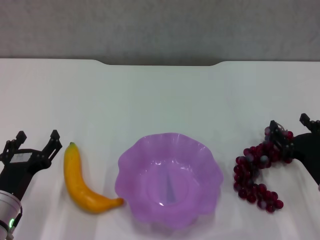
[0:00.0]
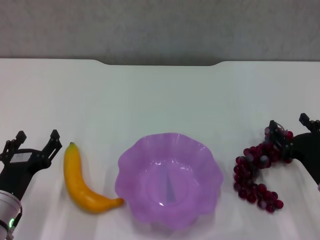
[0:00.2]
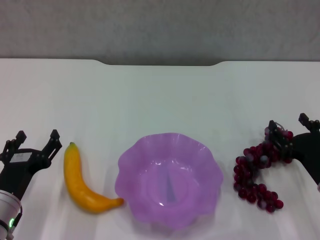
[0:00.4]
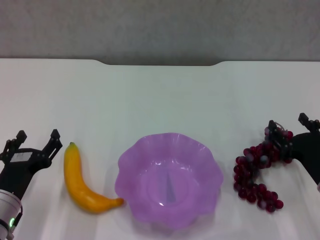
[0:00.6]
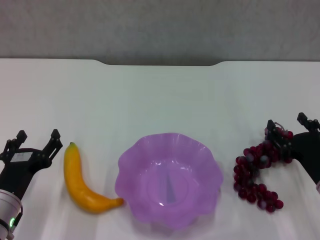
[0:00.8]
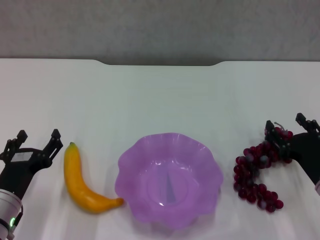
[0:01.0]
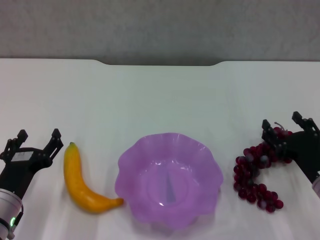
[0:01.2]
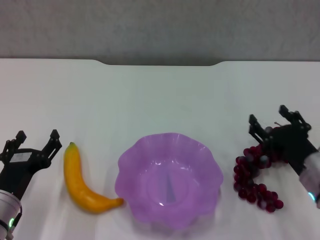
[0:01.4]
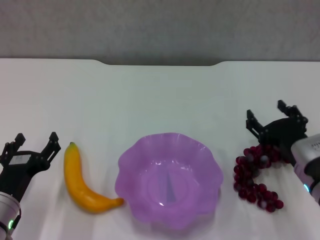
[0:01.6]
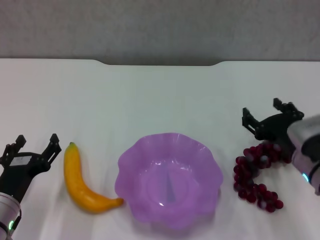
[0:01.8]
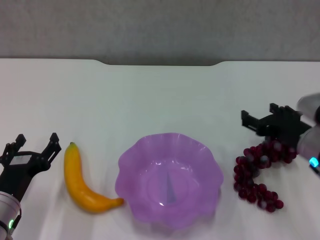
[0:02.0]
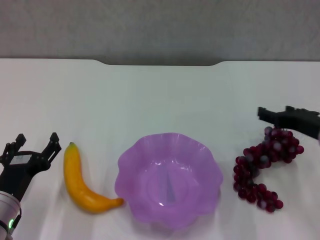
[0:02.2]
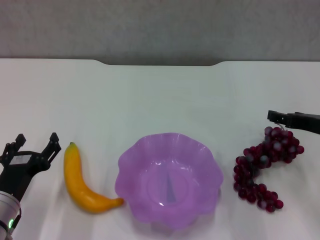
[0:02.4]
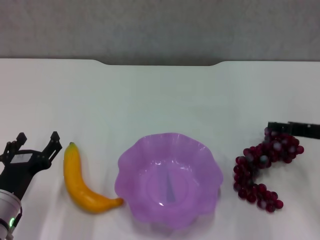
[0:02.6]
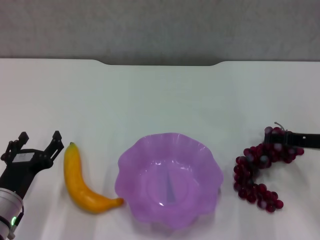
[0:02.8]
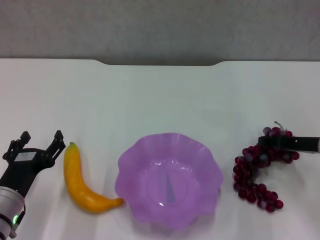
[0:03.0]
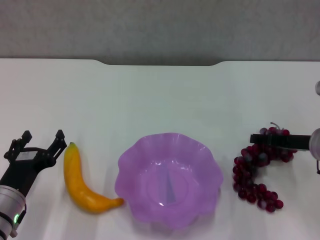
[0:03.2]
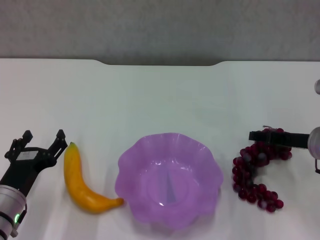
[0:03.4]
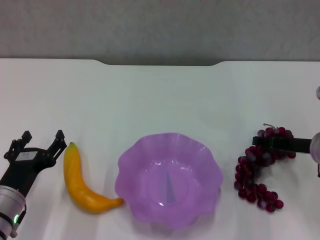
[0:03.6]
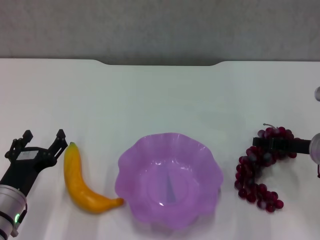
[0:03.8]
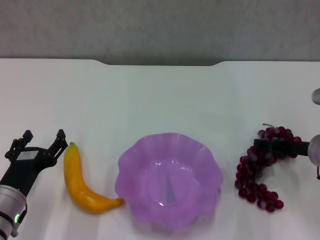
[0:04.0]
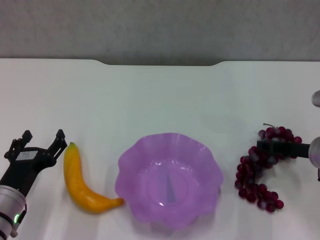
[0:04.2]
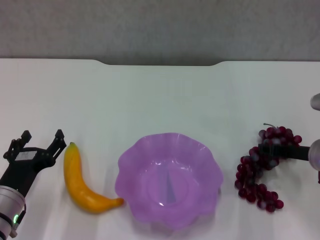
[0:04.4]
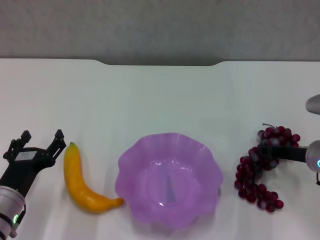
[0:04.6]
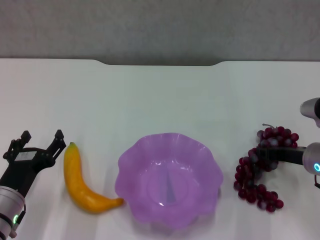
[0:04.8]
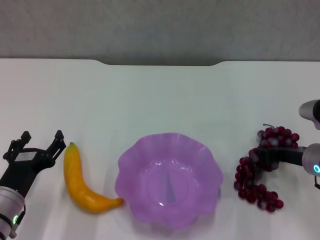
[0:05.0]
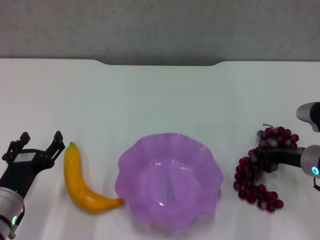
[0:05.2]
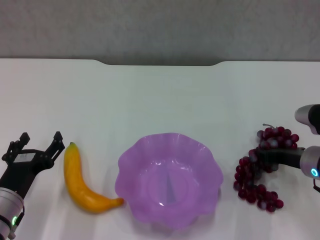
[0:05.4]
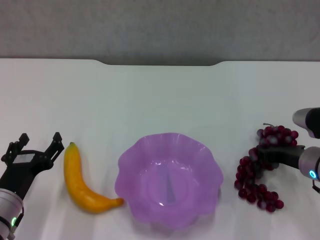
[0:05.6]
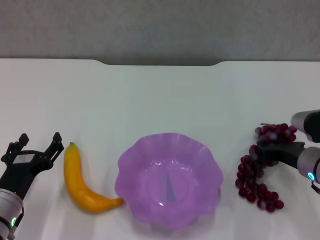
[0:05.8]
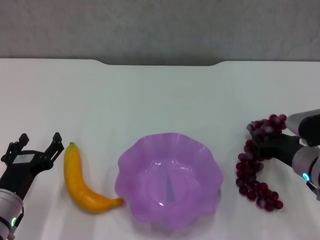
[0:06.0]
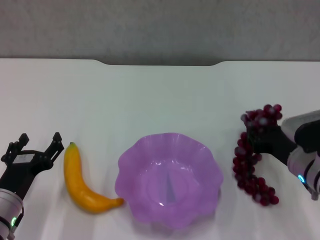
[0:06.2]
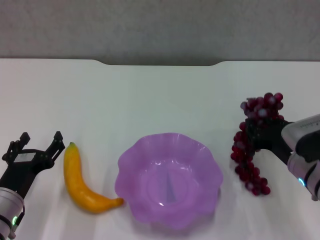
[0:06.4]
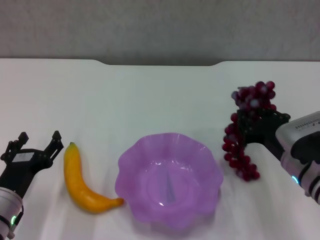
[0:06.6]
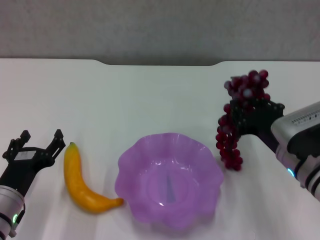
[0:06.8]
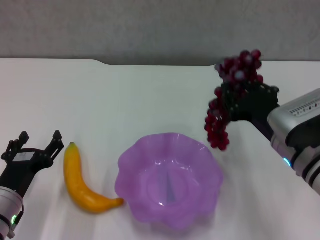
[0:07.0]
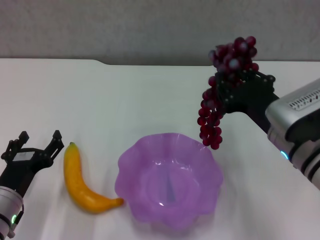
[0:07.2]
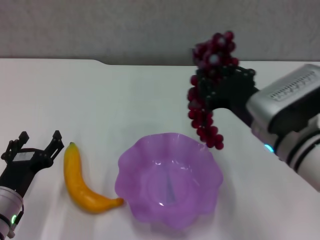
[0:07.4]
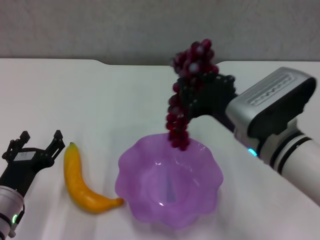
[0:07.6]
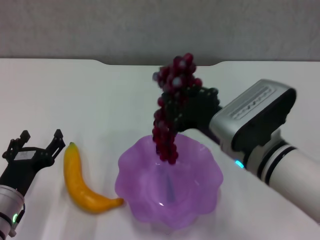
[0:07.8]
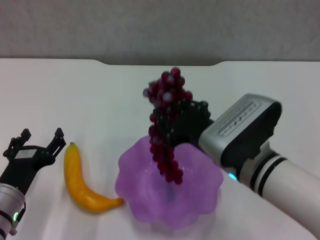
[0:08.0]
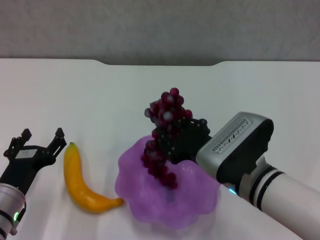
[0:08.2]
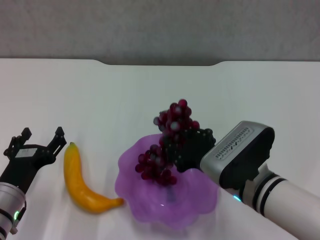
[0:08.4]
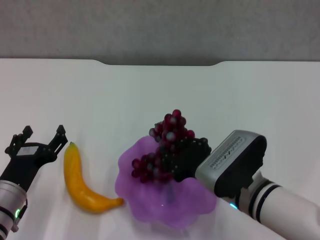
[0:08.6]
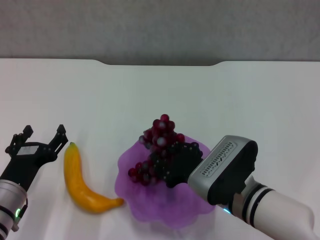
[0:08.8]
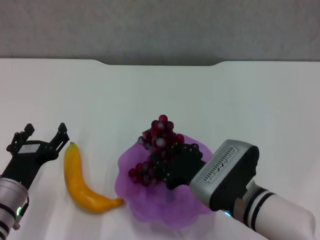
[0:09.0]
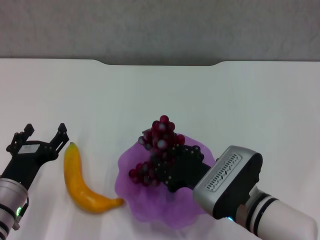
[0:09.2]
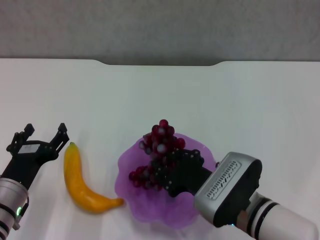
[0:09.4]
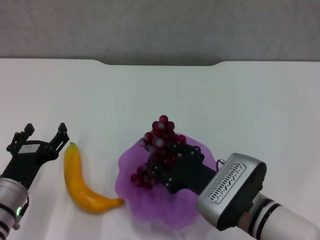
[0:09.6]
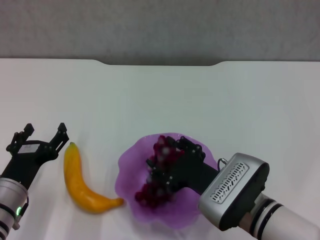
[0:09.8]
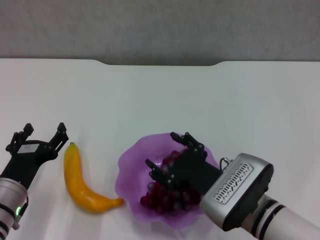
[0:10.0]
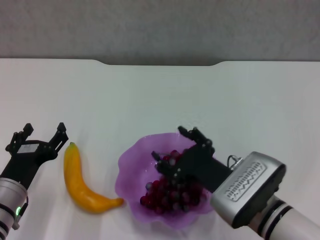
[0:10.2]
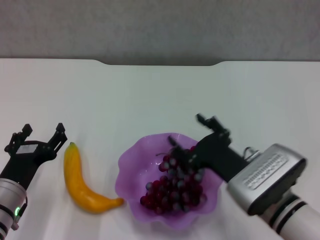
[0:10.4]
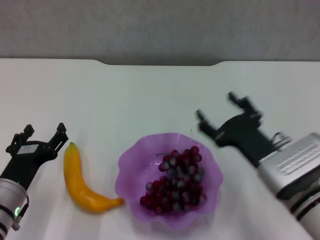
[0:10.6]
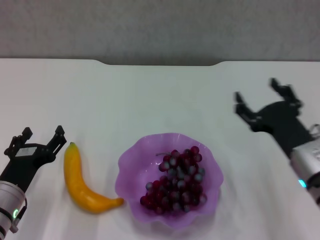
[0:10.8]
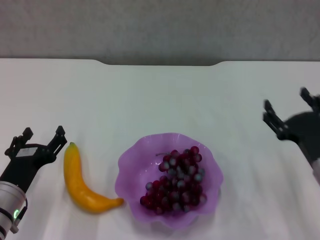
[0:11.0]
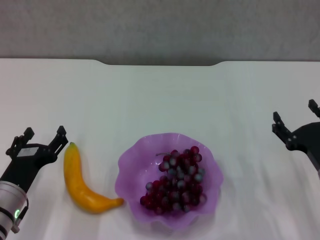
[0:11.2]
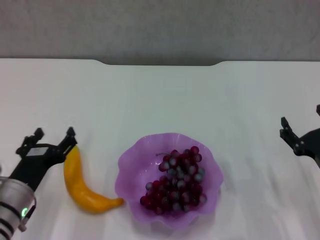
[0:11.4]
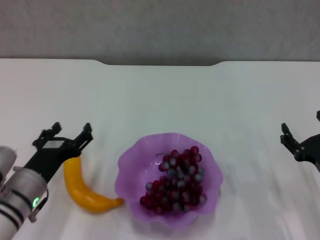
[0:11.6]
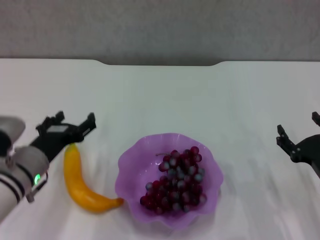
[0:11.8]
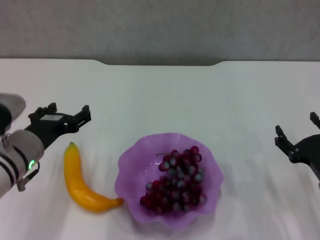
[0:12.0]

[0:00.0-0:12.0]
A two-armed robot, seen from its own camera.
Step, 0:00.0 to 0:05.0: Grasp the grape with right gripper.
Step, 0:05.2 to 0:10.0: Place the grape in the purple plate with right gripper.
0:00.0 to 0:01.6: The right gripper ends up approximately 5 cm from where it was.
0:01.6 to 0:03.0: The right gripper travels forward and to the right by roughly 10 cm.
0:03.0 to 0:04.4: The right gripper closes.
0:04.4 to 0:06.0: The right gripper closes.
0:06.0 to 0:07.6: The right gripper shifts some 15 cm to the left and upward.
0:07.6 to 0:09.0: The right gripper goes some 10 cm downward.
0:09.0 to 0:10.4: The right gripper opens up.
0:10.4 to 0:12.0: The left gripper moves upward, approximately 10 cm. The right gripper shifts about 15 cm to the right.

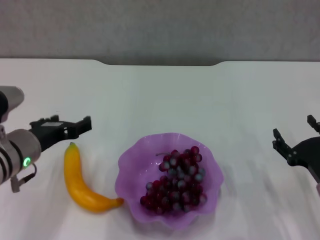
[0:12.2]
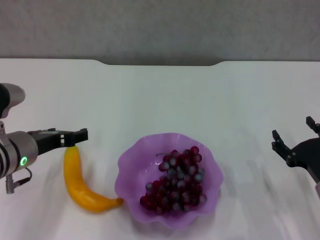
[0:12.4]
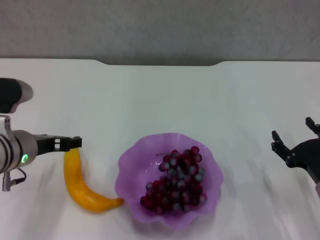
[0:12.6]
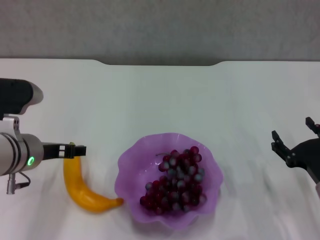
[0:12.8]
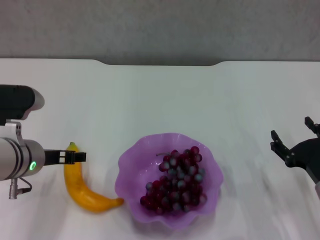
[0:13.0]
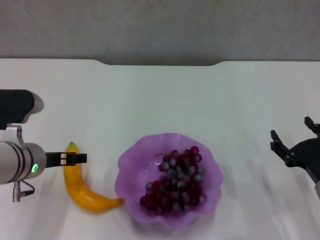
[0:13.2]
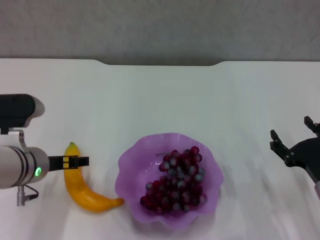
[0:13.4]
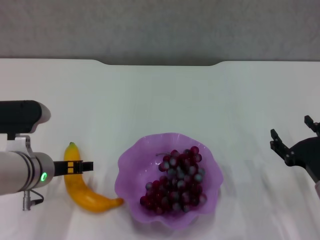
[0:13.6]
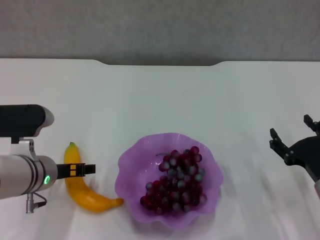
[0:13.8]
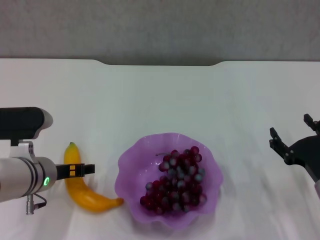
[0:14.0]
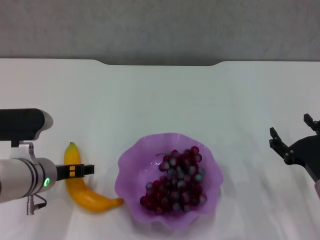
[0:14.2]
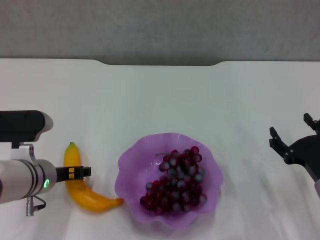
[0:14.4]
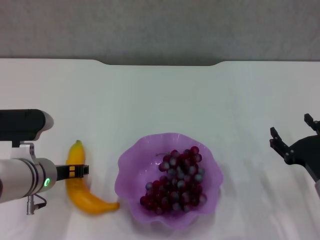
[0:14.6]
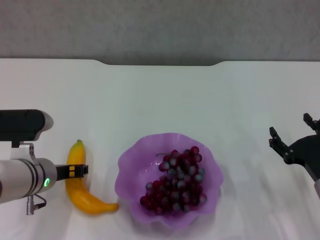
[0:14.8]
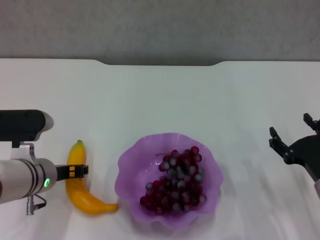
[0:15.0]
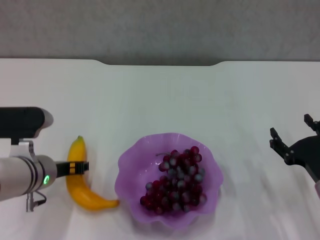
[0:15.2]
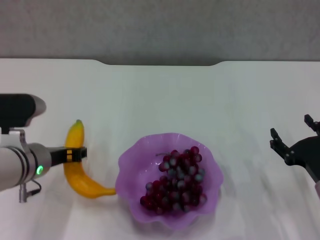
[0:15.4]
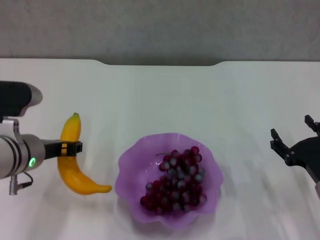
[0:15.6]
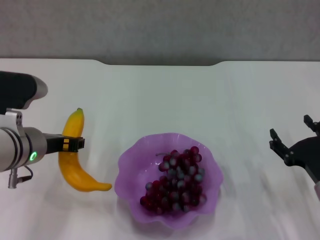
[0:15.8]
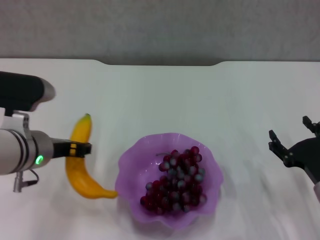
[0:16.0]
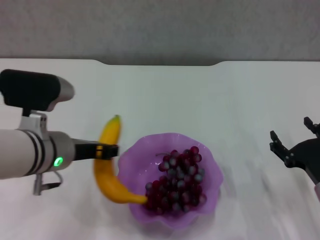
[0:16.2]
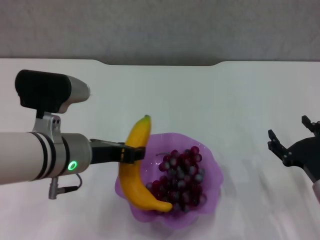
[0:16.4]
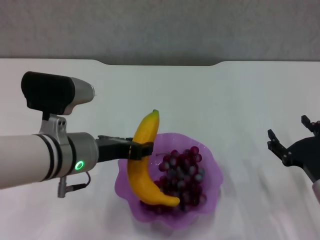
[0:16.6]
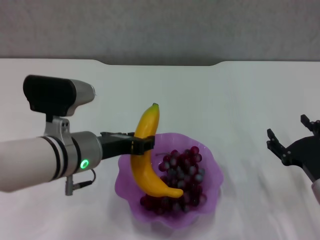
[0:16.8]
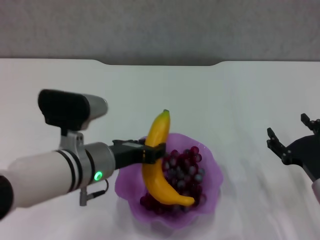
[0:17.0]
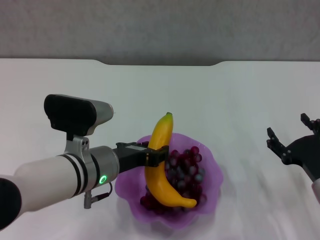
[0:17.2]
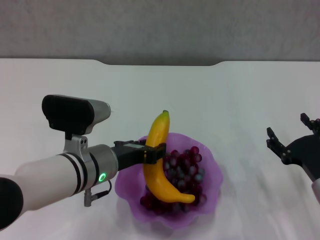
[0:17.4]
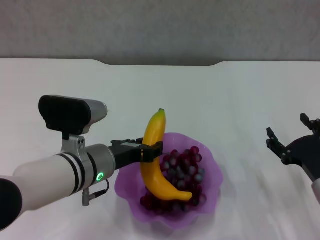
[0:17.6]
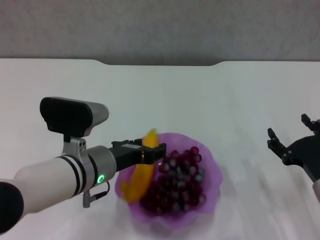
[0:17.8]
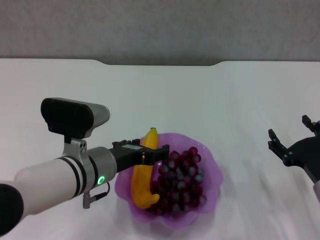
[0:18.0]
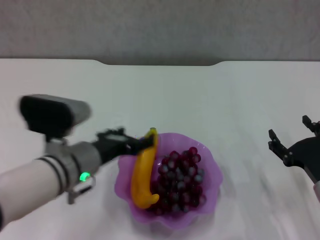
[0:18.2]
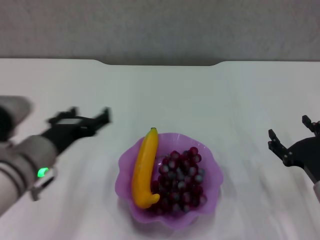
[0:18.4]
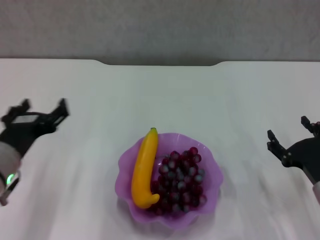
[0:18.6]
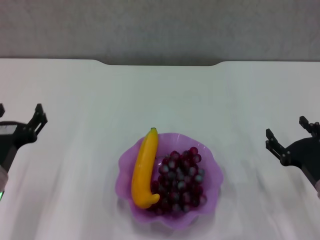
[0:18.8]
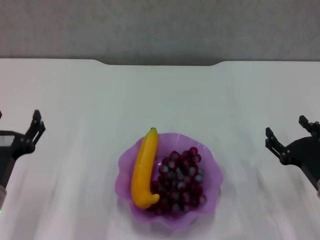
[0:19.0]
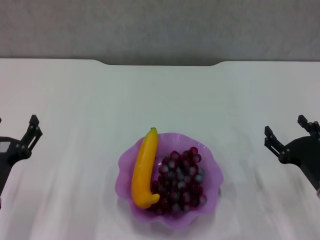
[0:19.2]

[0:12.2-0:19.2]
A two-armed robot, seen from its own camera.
Step, 0:12.2 to 0:14.6: Grasp the banana with left gripper.
Step, 0:15.0 to 0:18.2: Place the banana in the purple plate with left gripper.
0:13.6 to 0:15.0: The left gripper closes its fingers.
0:15.0 to 0:16.4: The left gripper goes about 10 cm upward and to the right.
0:16.4 to 0:17.8: The left gripper moves downward, approximately 5 cm.
0:17.8 to 0:19.2: The left gripper goes about 15 cm to the left and backward, and opens.

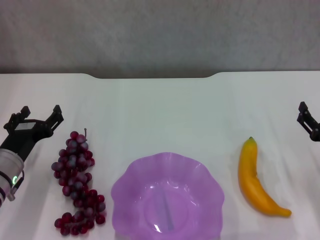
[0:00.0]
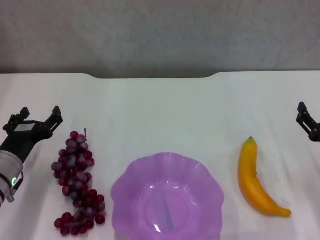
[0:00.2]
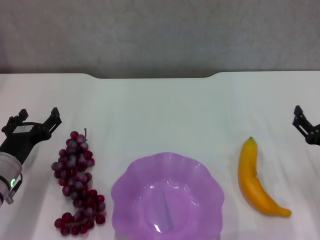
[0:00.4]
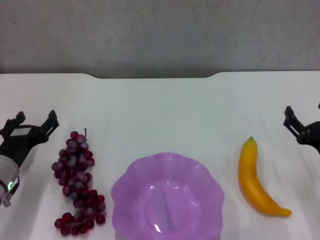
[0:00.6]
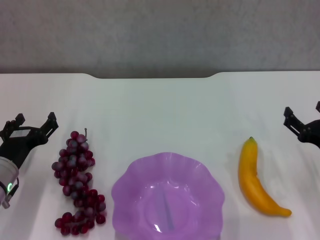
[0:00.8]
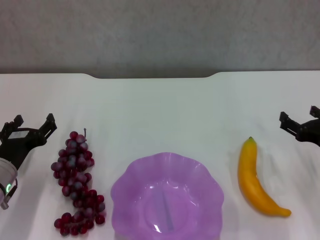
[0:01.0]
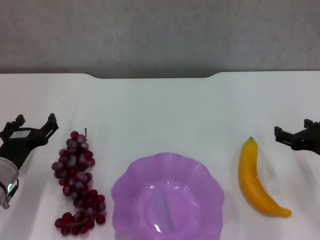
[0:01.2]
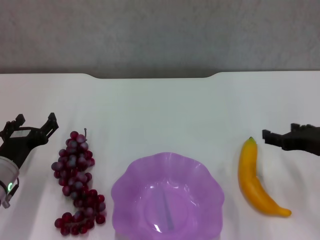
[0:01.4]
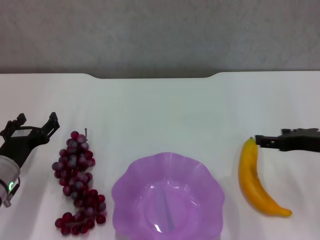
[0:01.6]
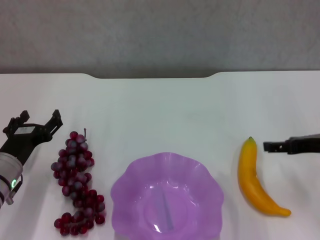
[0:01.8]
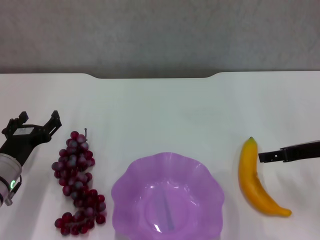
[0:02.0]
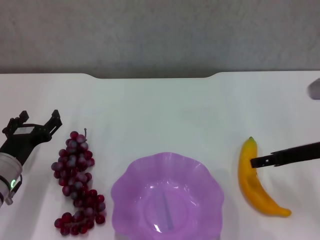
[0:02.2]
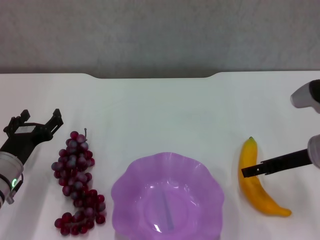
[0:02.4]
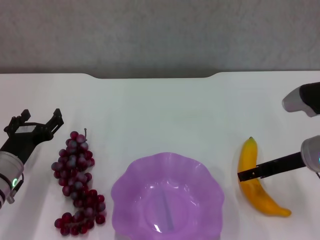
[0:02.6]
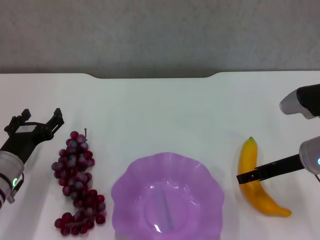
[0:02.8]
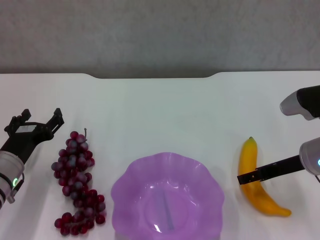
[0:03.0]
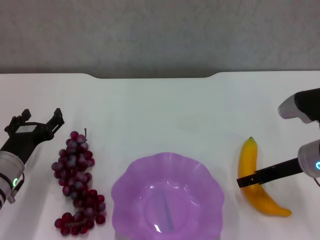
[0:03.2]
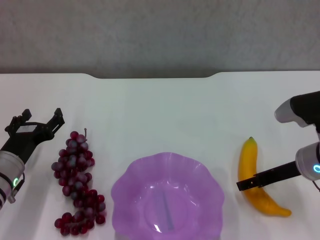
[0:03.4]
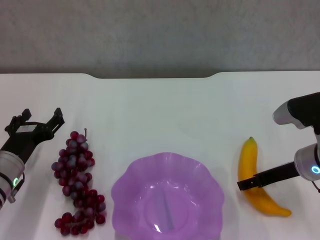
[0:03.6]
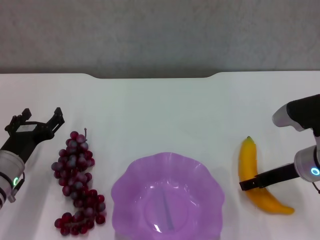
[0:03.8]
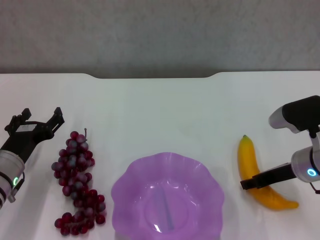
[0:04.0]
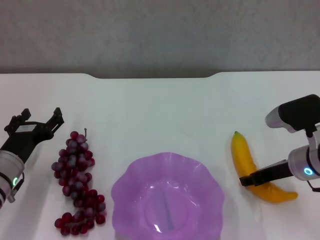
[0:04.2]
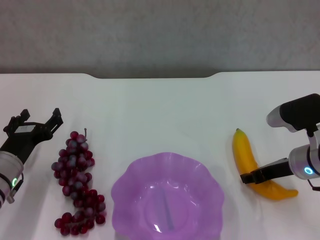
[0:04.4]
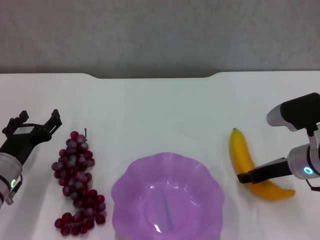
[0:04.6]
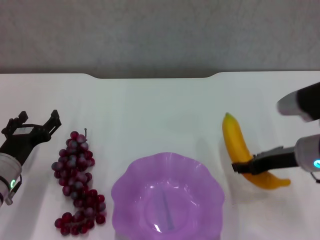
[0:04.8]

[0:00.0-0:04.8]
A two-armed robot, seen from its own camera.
Step, 0:00.0 to 0:04.2: Grasp the banana with right gripper.
0:00.0 to 0:01.6: The right gripper shifts roughly 10 cm upward.
0:01.6 to 0:03.2: The right gripper moves some 5 cm.
0:03.2 to 0:04.8: The right gripper closes its fingers.
